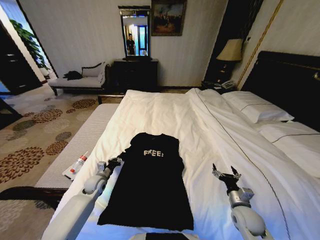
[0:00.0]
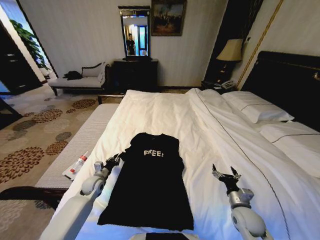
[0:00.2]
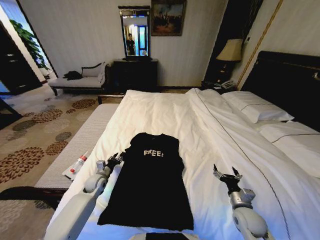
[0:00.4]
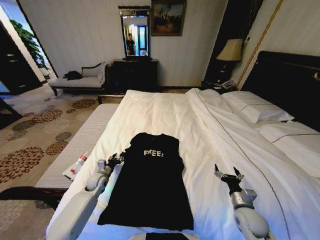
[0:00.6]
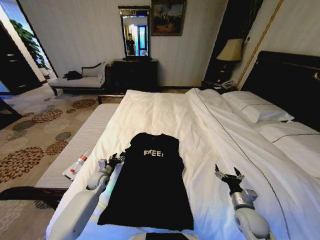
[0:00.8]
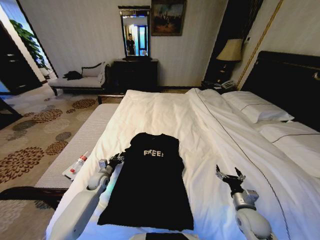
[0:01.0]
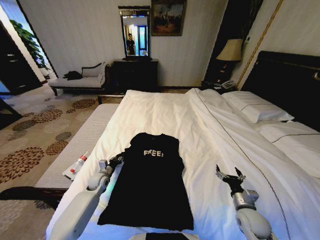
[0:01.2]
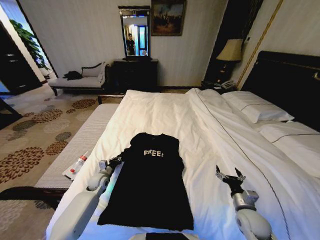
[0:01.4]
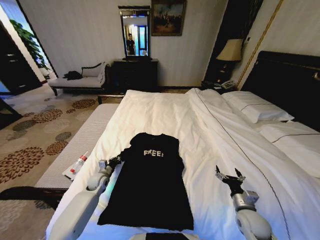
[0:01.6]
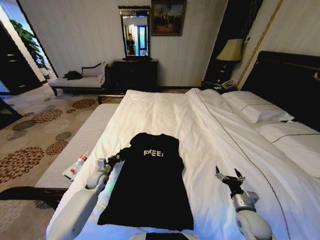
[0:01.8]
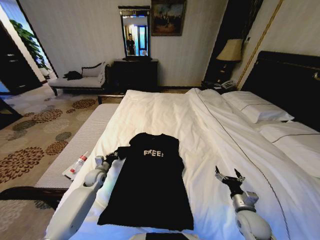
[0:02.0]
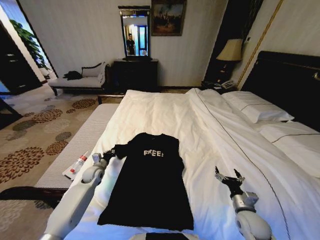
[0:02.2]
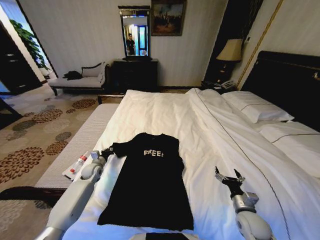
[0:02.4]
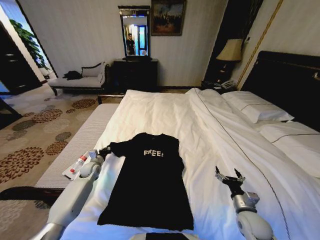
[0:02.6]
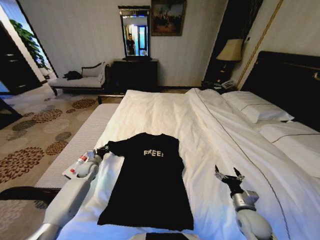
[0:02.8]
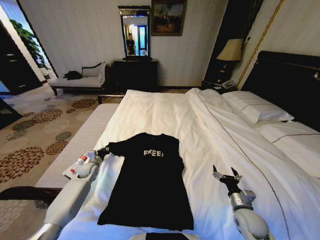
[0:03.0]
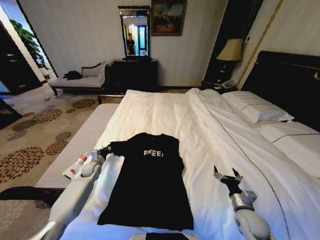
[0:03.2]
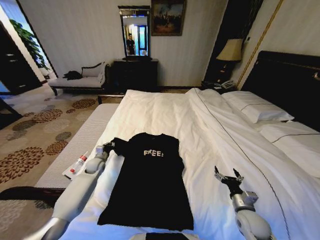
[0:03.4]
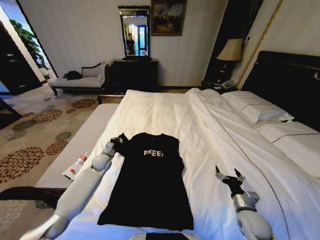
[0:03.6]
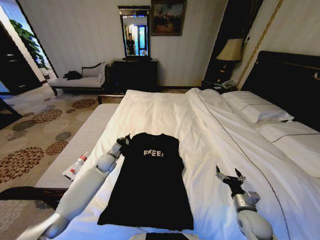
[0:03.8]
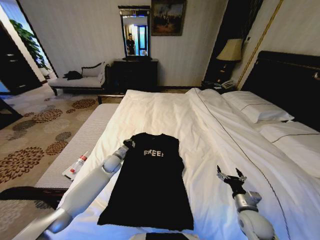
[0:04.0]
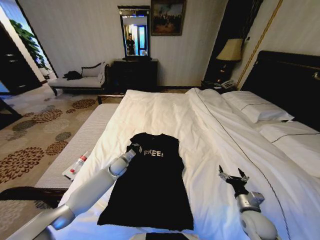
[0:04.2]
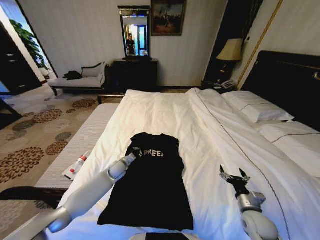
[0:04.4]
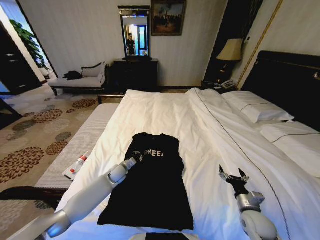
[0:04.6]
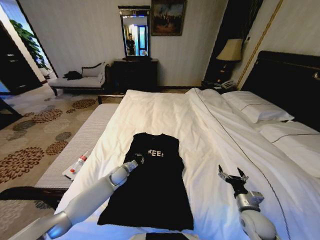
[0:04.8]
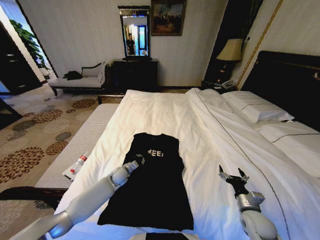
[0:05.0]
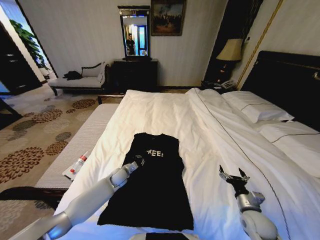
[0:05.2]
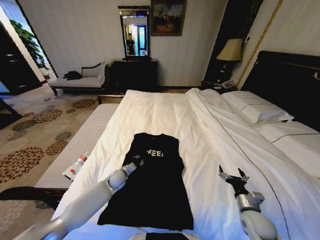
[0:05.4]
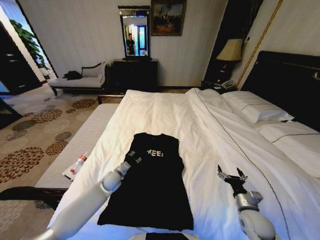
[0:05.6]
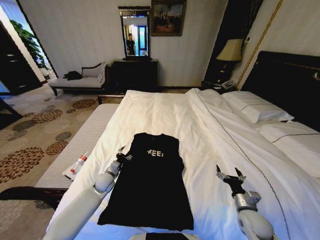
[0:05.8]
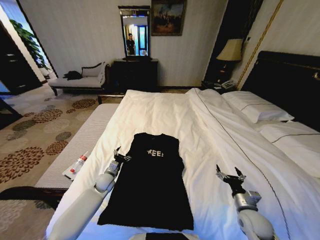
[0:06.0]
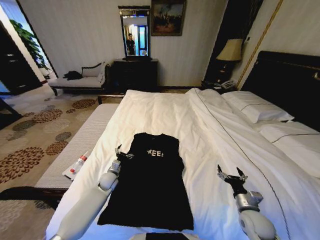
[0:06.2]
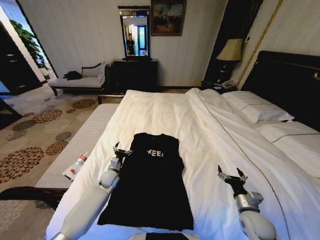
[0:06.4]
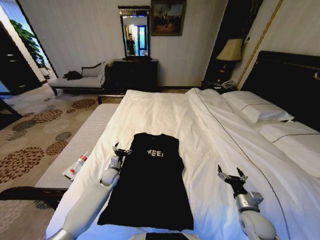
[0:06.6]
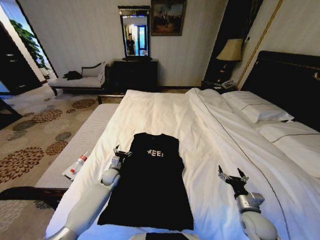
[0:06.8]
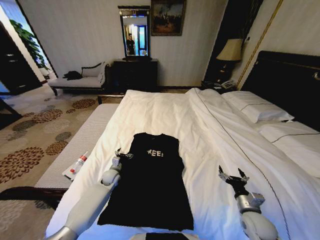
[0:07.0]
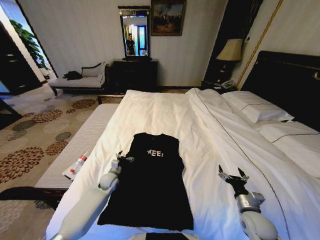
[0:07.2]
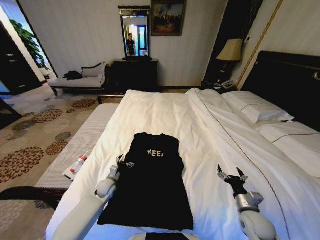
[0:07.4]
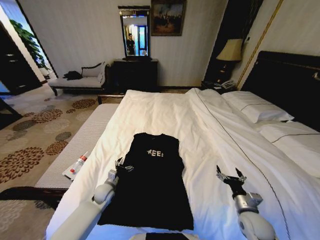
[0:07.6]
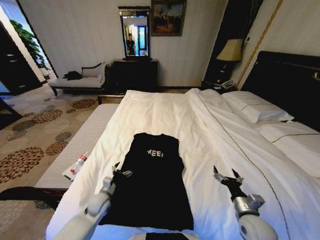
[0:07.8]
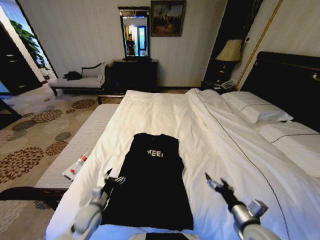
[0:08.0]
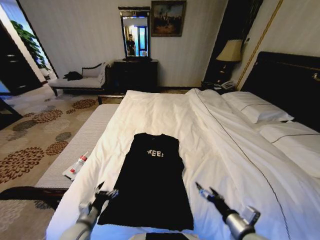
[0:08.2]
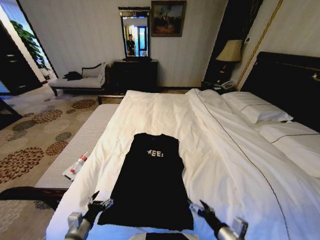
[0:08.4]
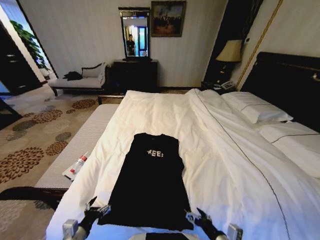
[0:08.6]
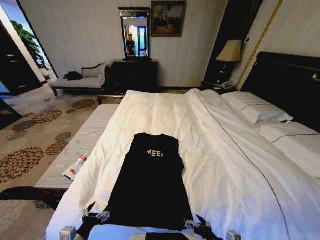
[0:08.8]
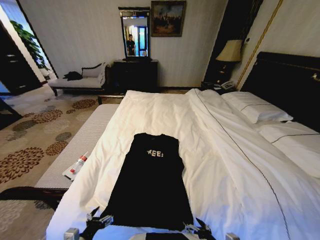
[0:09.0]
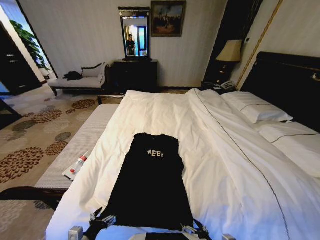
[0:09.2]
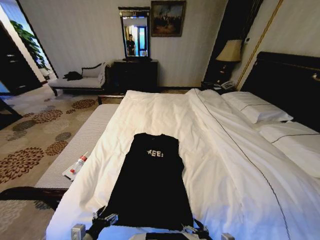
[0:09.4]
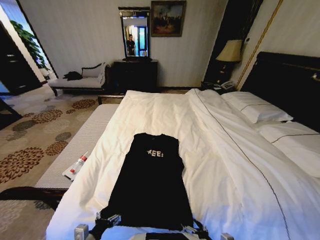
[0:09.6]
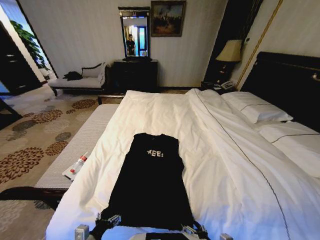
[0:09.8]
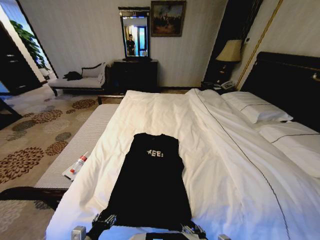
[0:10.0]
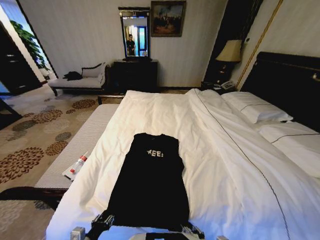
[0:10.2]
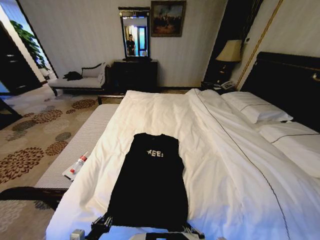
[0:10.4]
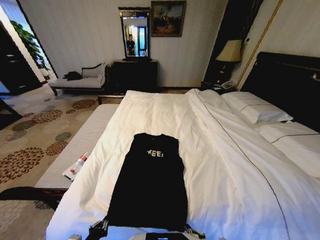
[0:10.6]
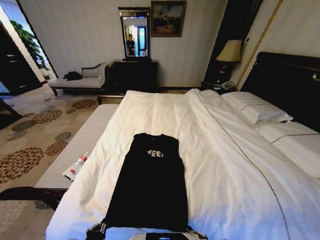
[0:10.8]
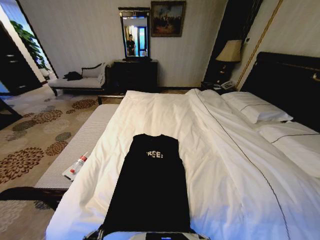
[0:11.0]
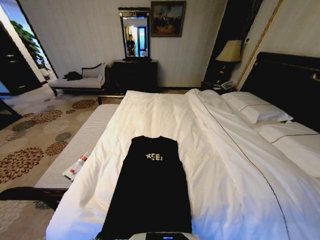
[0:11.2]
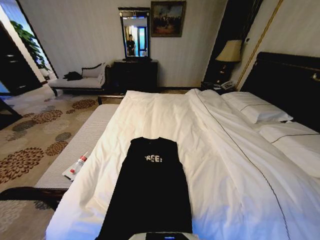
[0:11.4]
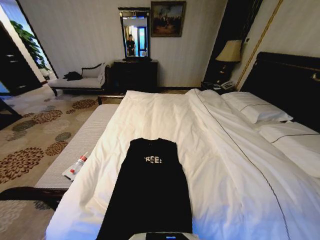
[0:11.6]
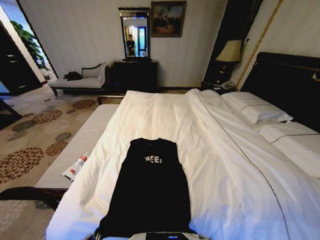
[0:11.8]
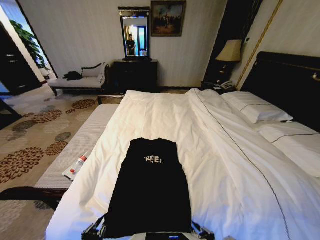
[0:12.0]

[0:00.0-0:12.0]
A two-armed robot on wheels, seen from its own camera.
Task of the whole recording: Fold the clothes on the bed.
0:00.0 to 0:01.6: The left gripper opens and closes again.
0:01.6 to 0:03.0: The left gripper is displaced to the left and forward by some 10 cm.
0:03.0 to 0:04.4: The left gripper heads to the right, covering approximately 15 cm.
0:04.4 to 0:06.0: The left gripper goes about 10 cm backward and to the left, and opens up.
0:06.0 to 0:07.6: The left gripper ends up about 5 cm from where it was.
0:07.6 to 0:09.0: The right gripper heads backward and to the left, covering roughly 20 cm, while the left gripper moves backward, some 25 cm.
0:09.0 to 0:10.4: The right gripper closes up, while the left gripper closes its fingers.
0:10.4 to 0:12.0: The right gripper travels upward by some 5 cm.

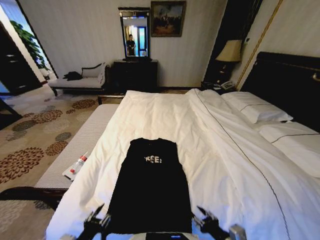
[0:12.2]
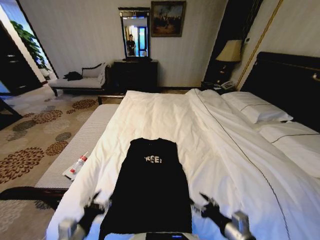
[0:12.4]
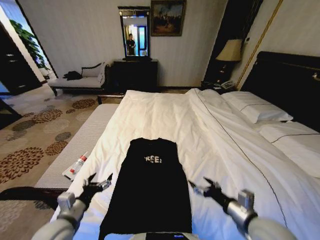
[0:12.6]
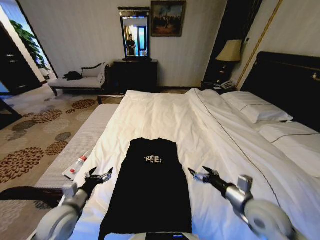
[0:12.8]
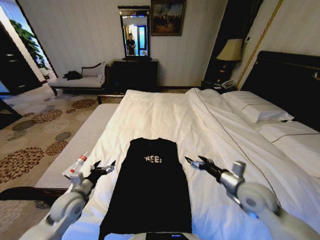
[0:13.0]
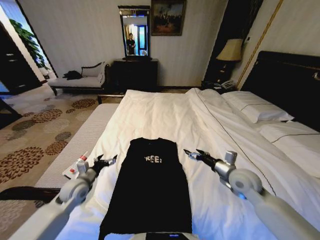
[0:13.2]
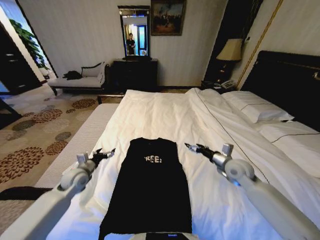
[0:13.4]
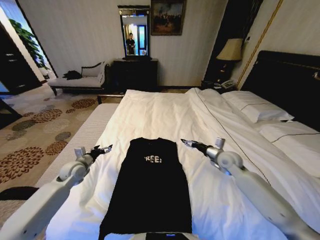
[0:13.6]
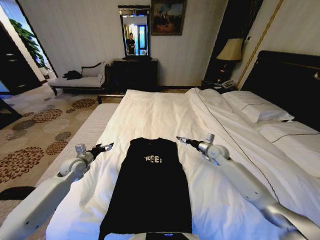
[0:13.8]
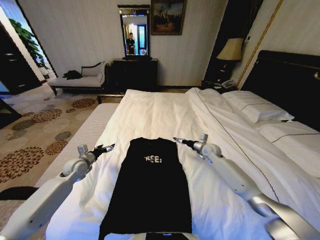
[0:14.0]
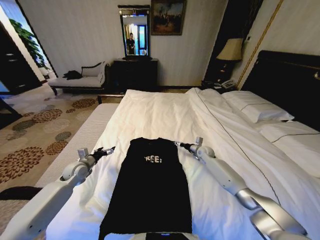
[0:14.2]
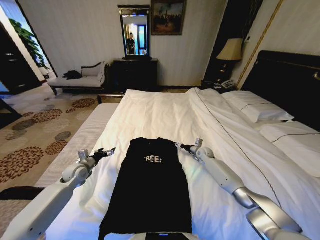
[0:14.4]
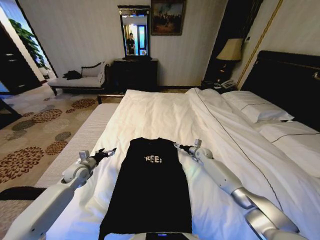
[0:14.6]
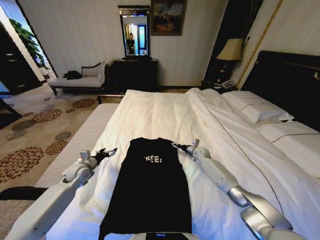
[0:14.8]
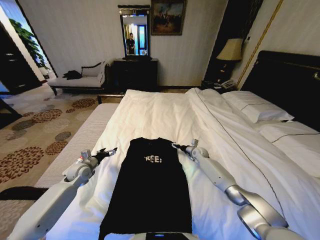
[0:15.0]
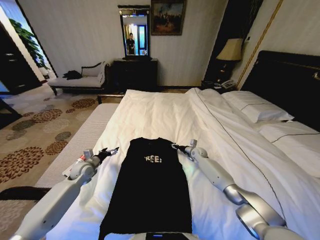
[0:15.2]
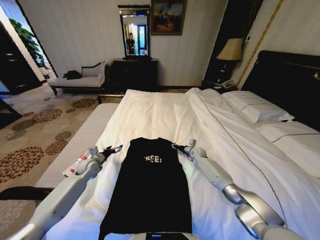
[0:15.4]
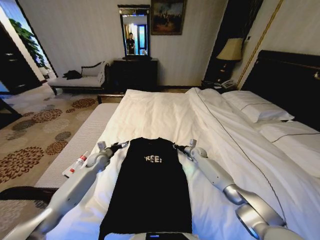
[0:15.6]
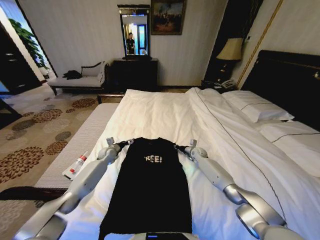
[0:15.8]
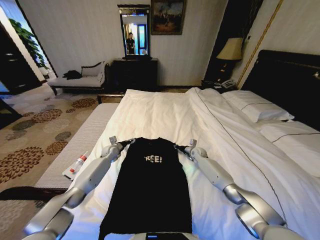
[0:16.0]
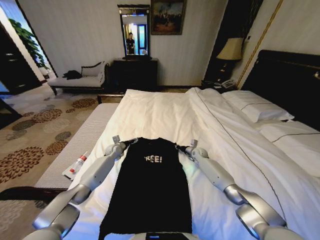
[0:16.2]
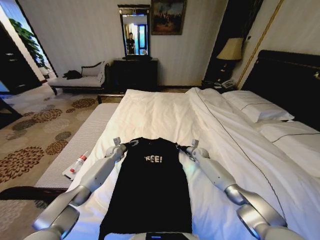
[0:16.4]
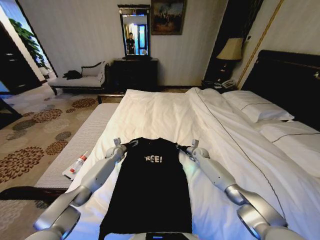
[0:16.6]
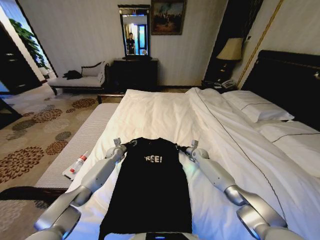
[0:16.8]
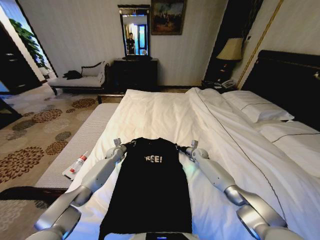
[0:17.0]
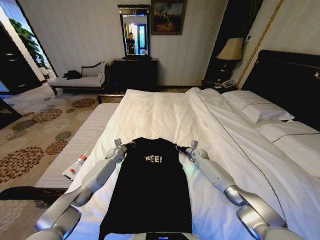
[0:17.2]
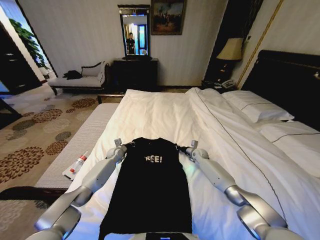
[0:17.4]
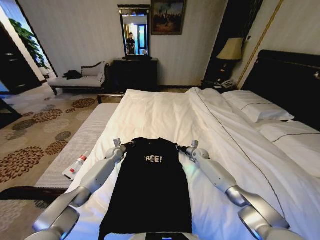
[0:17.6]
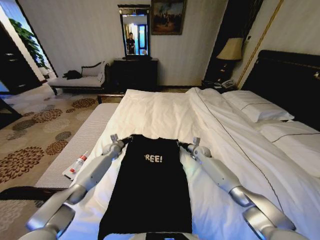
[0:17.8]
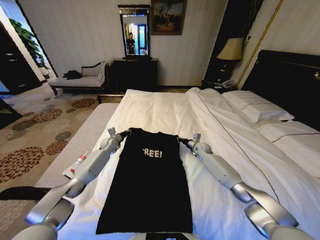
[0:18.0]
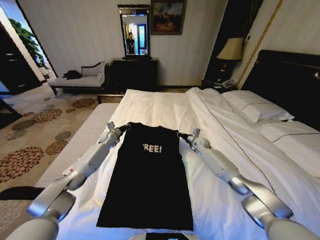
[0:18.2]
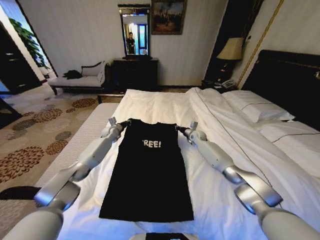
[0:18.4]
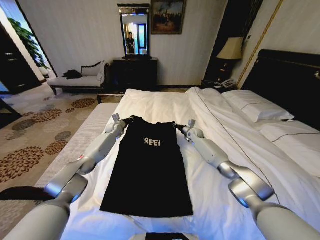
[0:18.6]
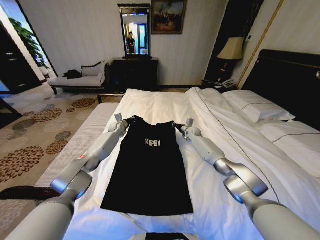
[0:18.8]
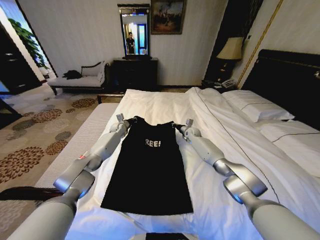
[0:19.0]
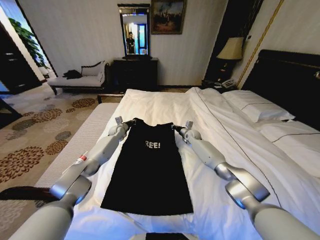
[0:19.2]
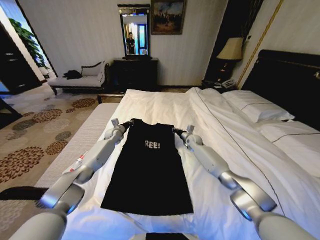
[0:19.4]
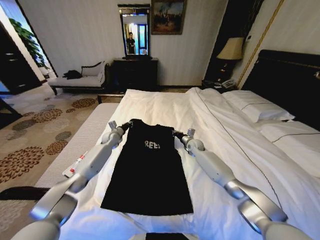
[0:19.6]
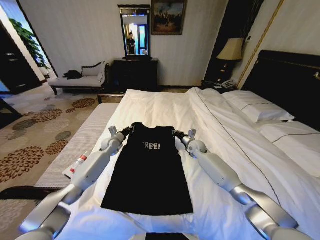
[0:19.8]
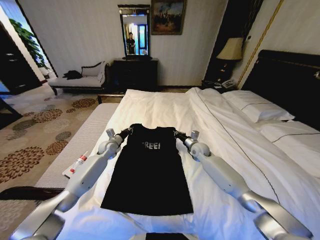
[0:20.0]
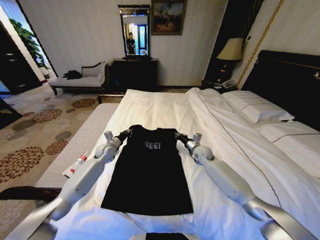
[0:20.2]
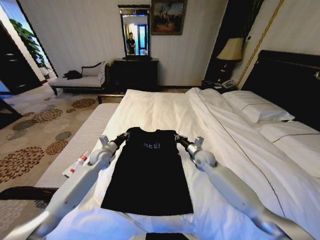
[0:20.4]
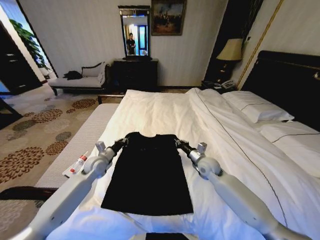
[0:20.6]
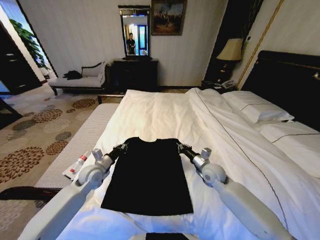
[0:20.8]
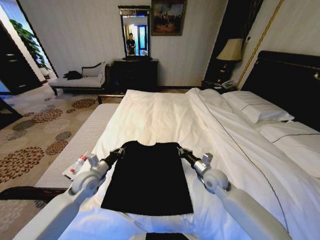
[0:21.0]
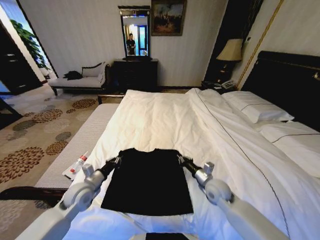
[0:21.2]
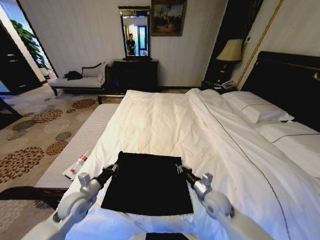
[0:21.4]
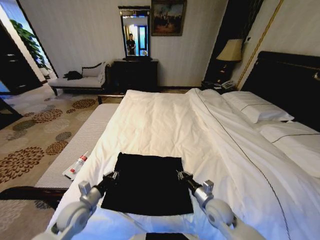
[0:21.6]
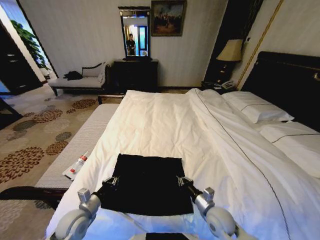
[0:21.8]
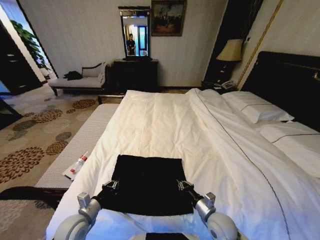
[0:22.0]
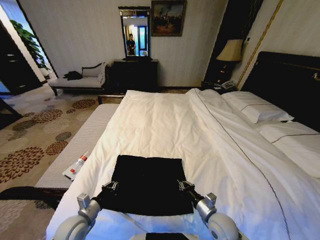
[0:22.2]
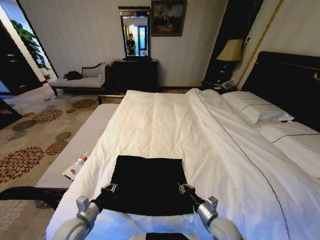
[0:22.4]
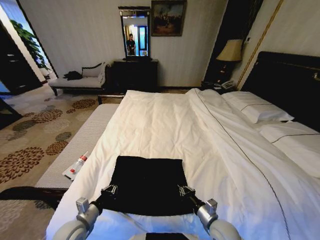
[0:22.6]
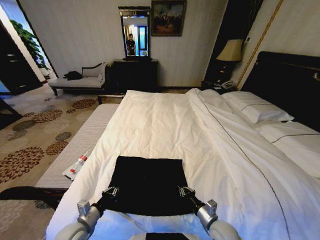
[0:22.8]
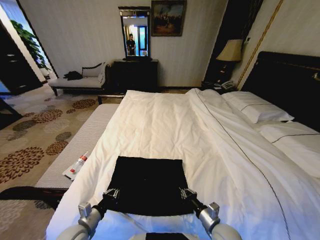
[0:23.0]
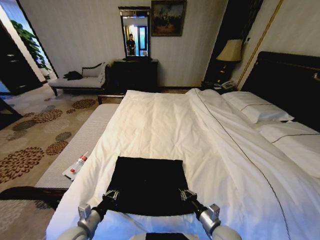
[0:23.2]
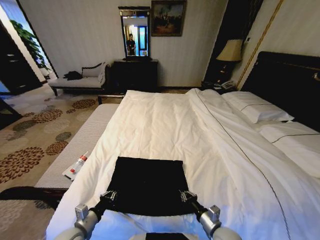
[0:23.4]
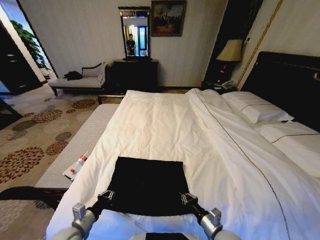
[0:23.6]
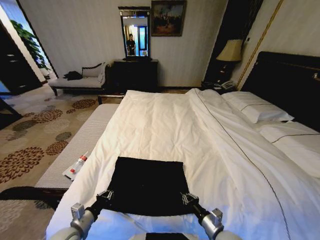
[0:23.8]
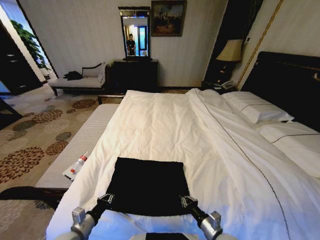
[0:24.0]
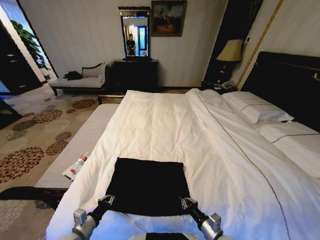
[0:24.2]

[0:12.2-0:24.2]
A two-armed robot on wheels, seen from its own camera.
Task of the whole recording: Fold the clothes on the bed.
0:12.2 to 0:13.8: The grippers both shift forward by some 40 cm. The right gripper opens up; the left gripper opens up.
0:13.8 to 0:15.2: The right gripper is displaced downward and forward by roughly 15 cm, and closes its fingers, while the left gripper changes place by some 5 cm.
0:15.2 to 0:16.6: The left gripper heads forward and to the right, covering about 20 cm, while the right gripper closes.
0:16.6 to 0:18.2: The right gripper heads upward, covering about 10 cm. Meanwhile the left gripper shifts about 10 cm upward and forward, and closes up.
0:18.2 to 0:19.8: The left gripper moves backward, approximately 5 cm; the right gripper changes place by roughly 5 cm.
0:19.8 to 0:21.2: Both grippers travel together backward, approximately 25 cm.
0:21.2 to 0:22.6: The grippers both shift backward and downward by roughly 15 cm.
0:22.6 to 0:24.2: There are only small adjustments of the grippers.
